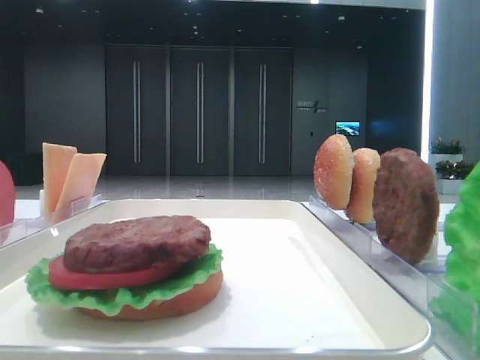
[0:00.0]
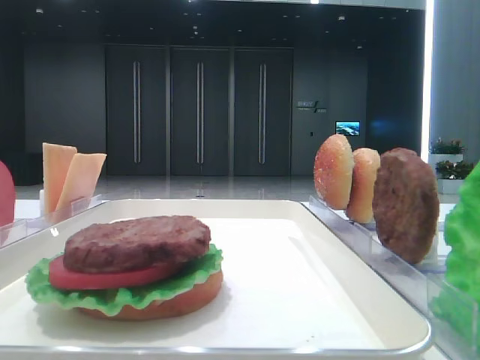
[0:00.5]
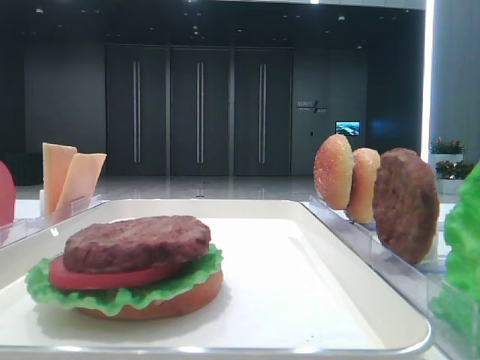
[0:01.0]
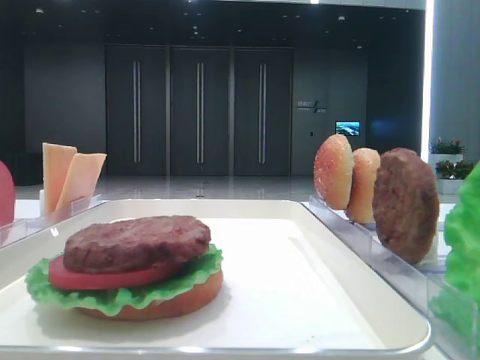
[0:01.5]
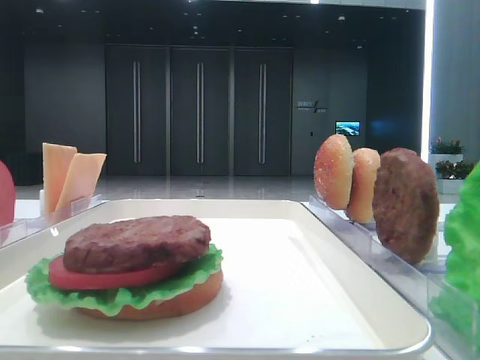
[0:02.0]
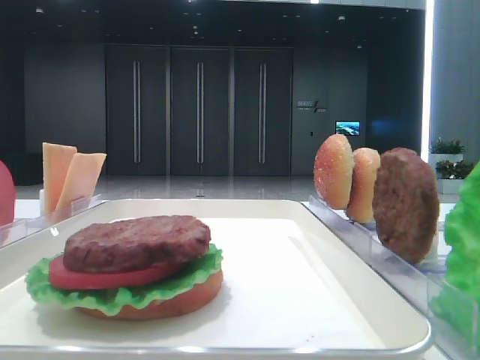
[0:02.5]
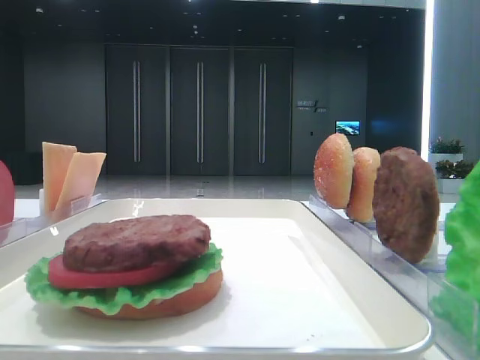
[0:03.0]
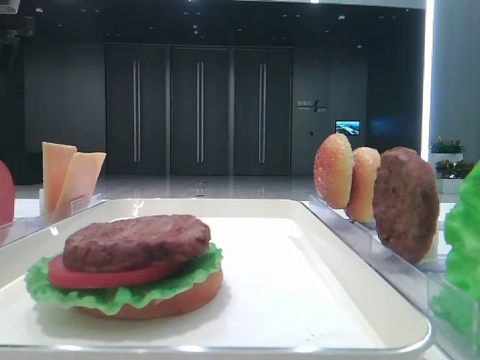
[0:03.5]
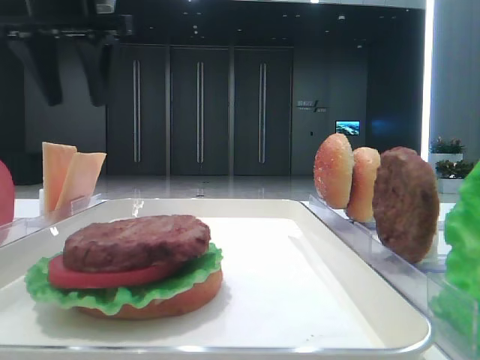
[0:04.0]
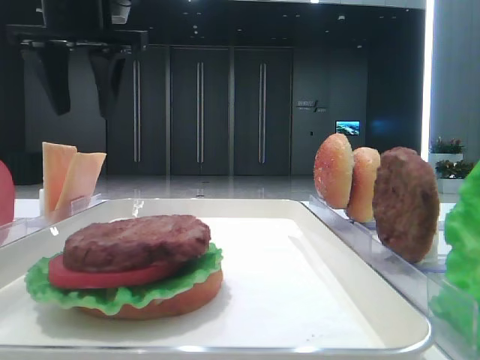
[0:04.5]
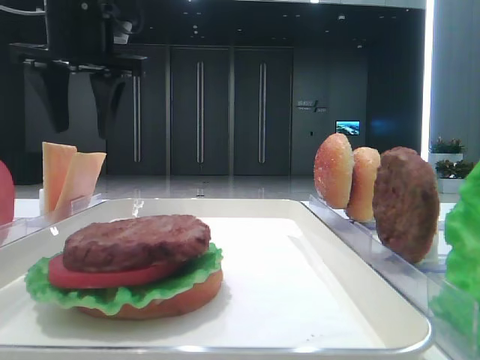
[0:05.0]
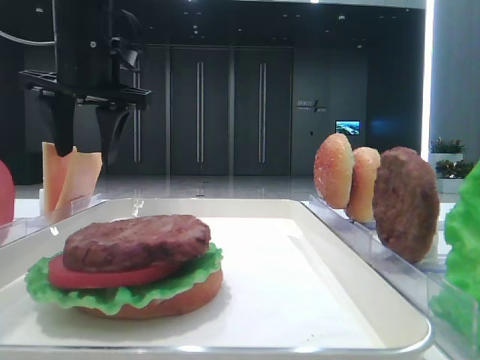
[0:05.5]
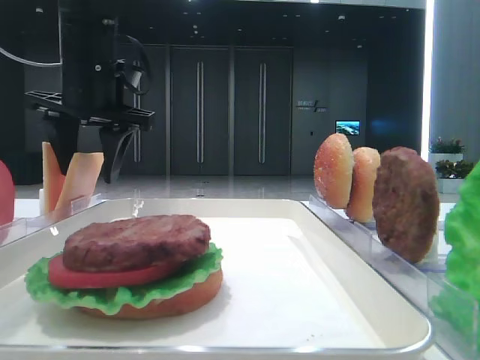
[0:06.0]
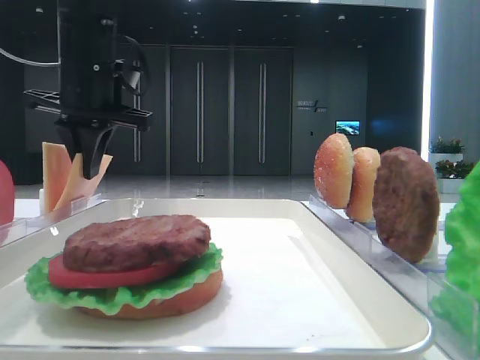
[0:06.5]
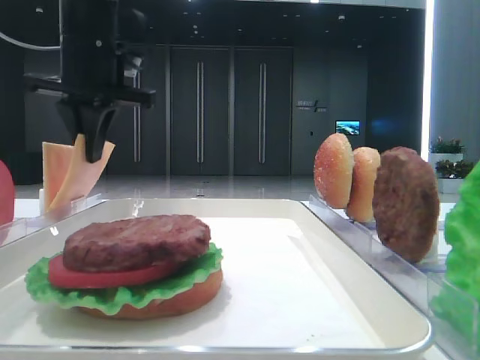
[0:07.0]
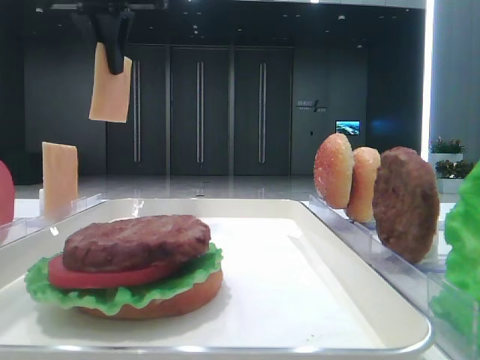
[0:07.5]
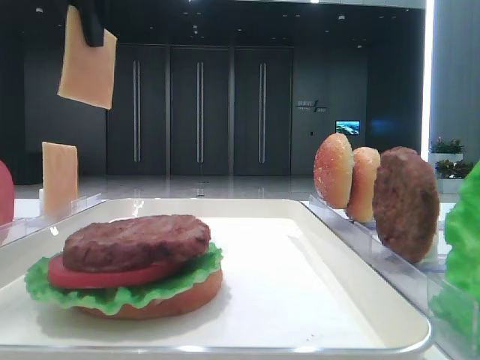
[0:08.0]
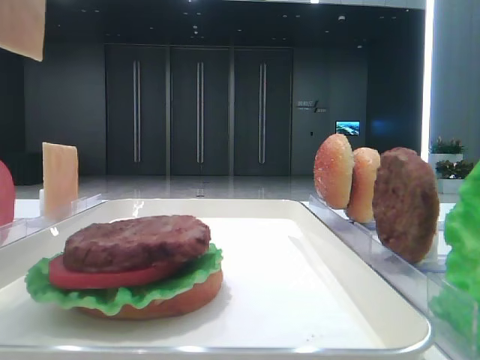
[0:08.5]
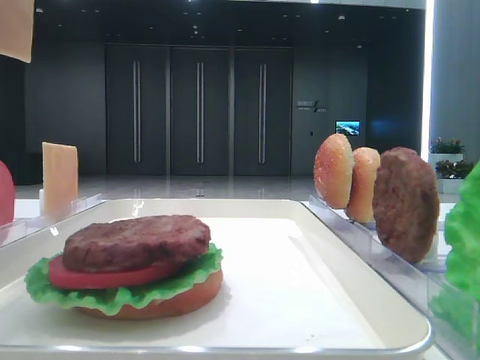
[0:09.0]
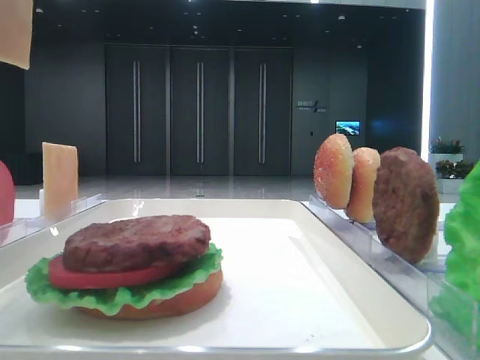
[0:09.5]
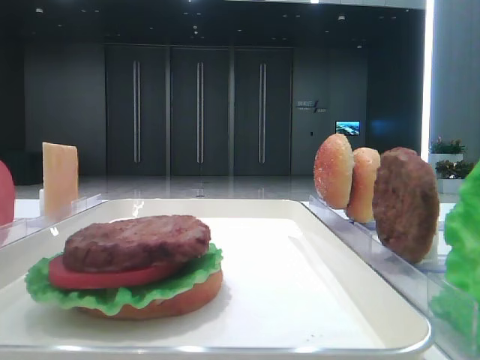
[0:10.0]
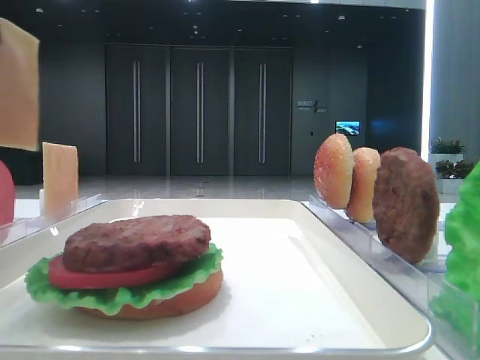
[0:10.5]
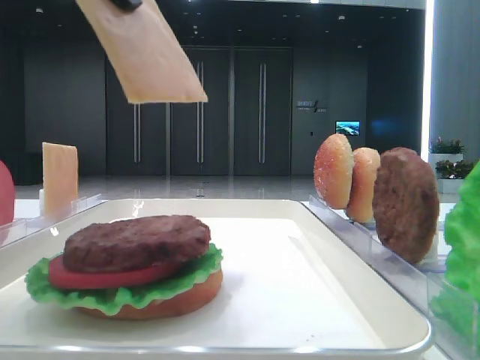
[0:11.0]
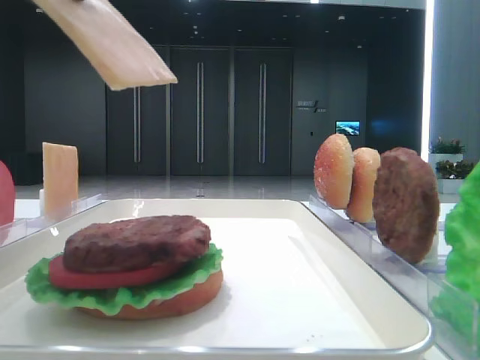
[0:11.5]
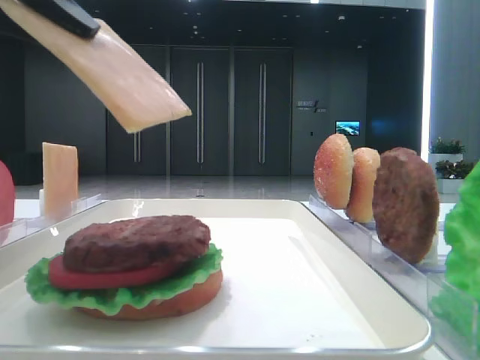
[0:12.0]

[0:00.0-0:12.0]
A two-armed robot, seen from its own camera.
Step, 0:00.0 to 0:06.0: Pick up the cheese slice with the left hand.
0:02.0 to 0:04.0: The left gripper goes about 40 cm forward.
0:04.0 to 0:06.0: The left gripper is displaced downward by approximately 10 cm.
0:06.0 to 0:08.0: The left gripper goes some 15 cm upward and backward, and closes up.
0:08.0 to 0:10.0: The left gripper heads backward, covering about 15 cm.
0:10.0 to 0:12.0: The left gripper shifts about 10 cm downward.

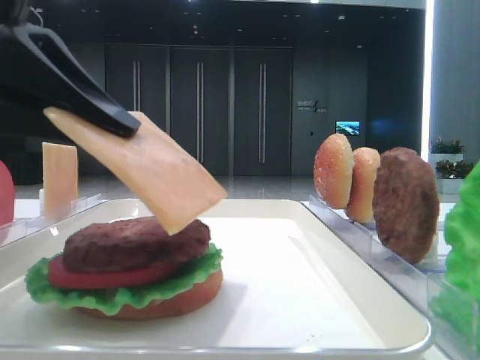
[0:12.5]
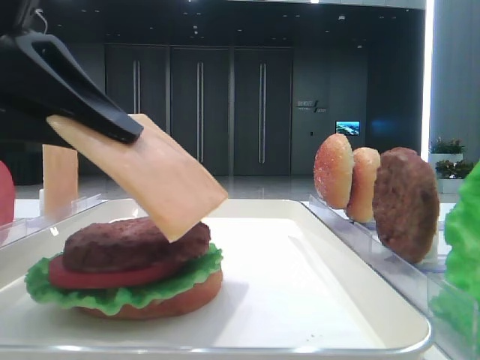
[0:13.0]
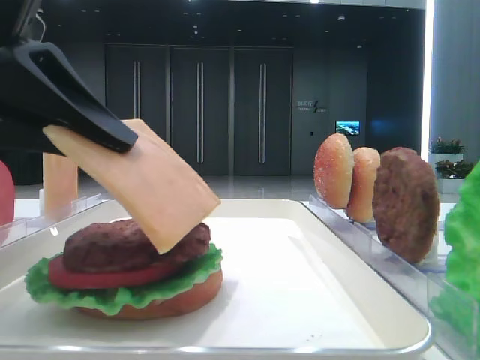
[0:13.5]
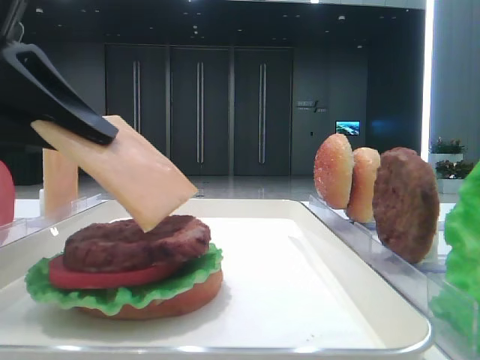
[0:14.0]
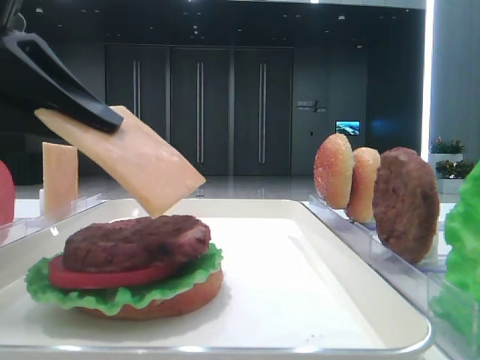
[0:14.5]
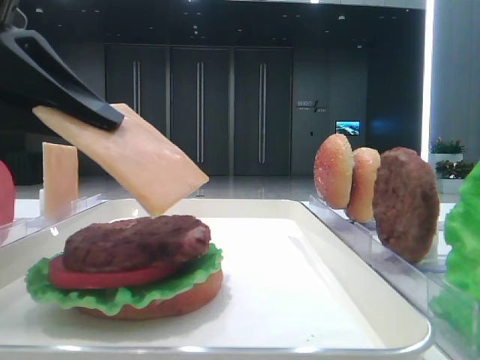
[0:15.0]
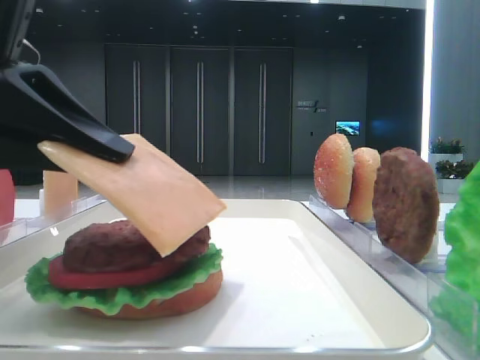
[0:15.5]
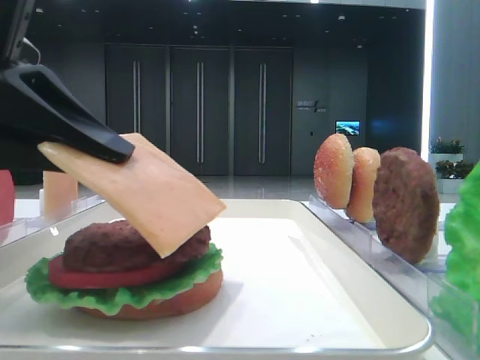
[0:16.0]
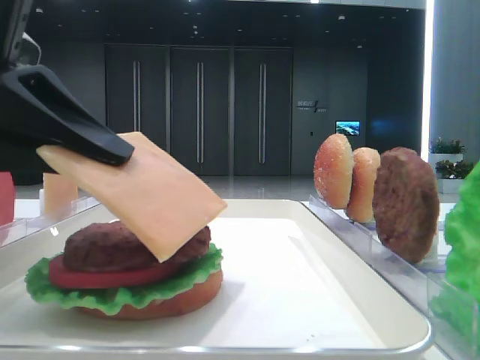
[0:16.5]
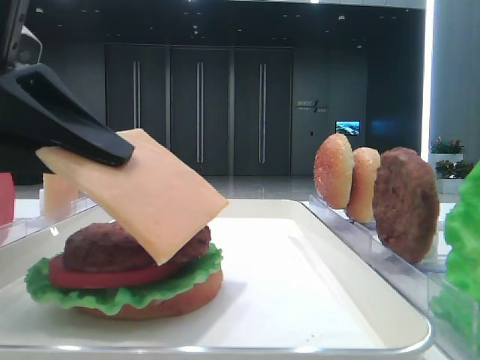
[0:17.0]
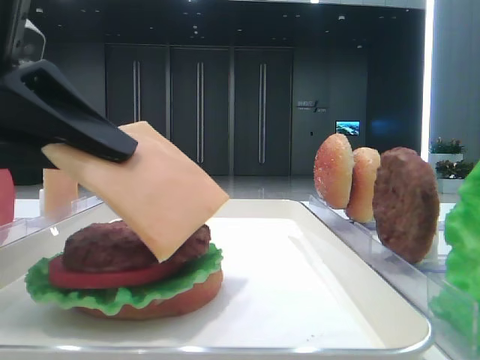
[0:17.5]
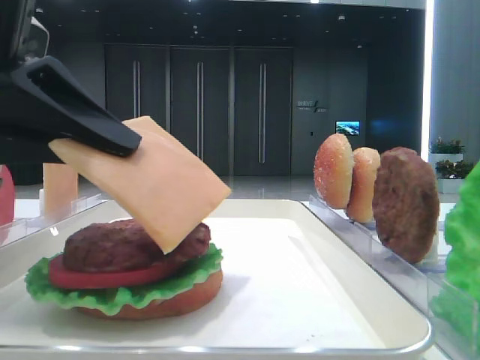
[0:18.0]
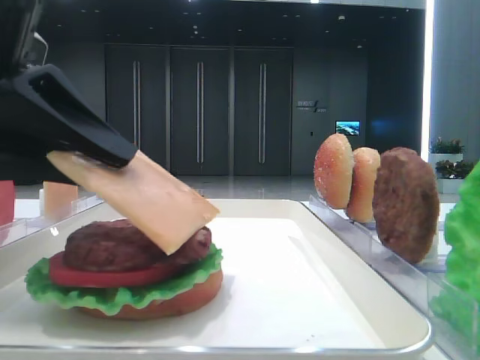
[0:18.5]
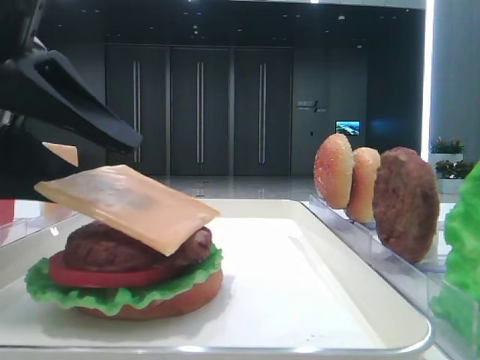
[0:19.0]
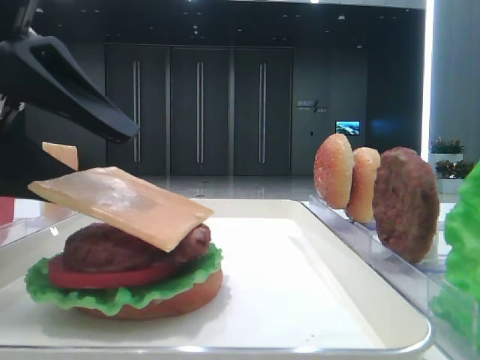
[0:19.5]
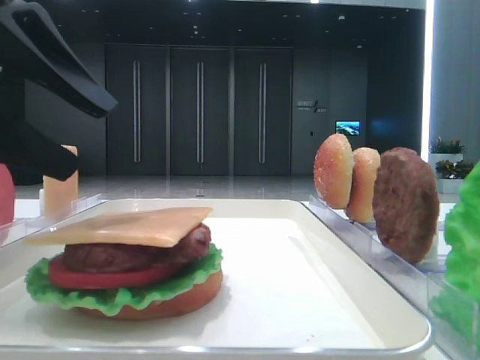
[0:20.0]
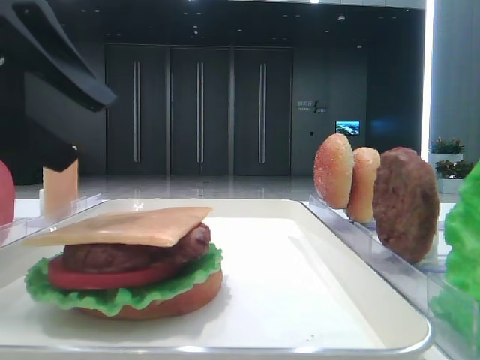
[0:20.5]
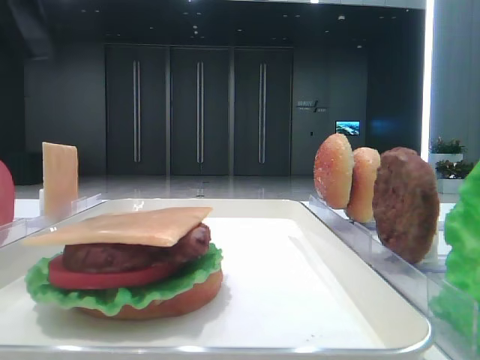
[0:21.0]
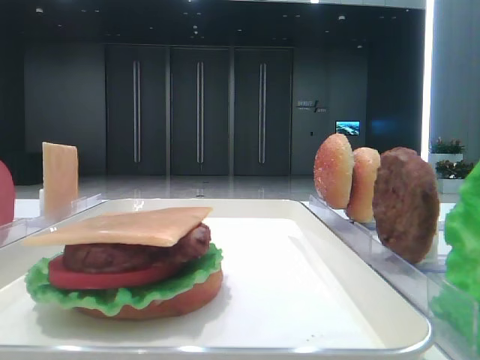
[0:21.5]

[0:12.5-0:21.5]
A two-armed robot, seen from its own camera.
Step, 0:12.5 to 0:19.5: Place the cheese slice on the patty with the left hand.
0:12.5 to 0:17.0: There are only small adjustments of the grippers.
0:17.0 to 0:19.5: The left gripper opens its fingers.
0:19.5 to 0:21.5: The left gripper goes some 20 cm upward and to the left.

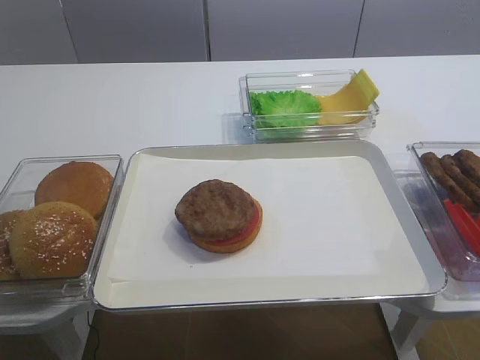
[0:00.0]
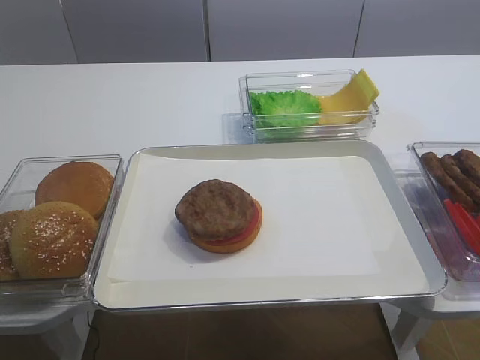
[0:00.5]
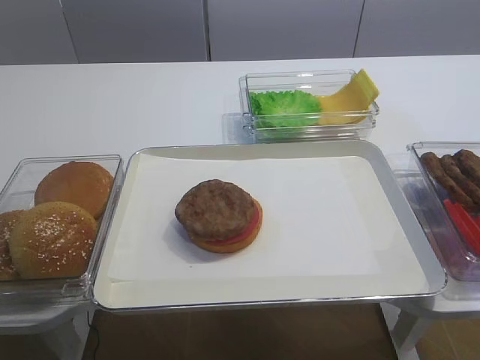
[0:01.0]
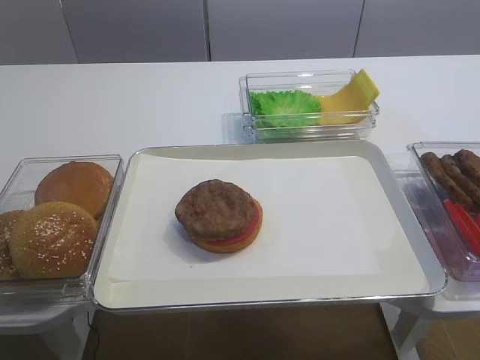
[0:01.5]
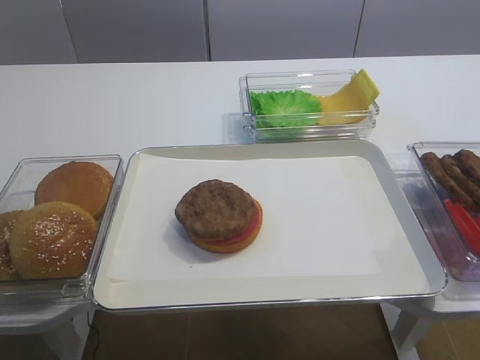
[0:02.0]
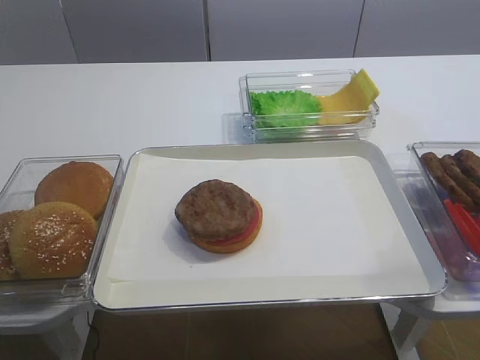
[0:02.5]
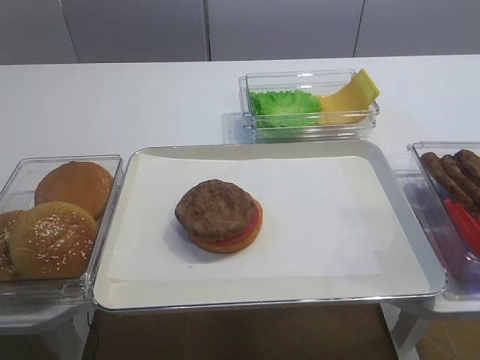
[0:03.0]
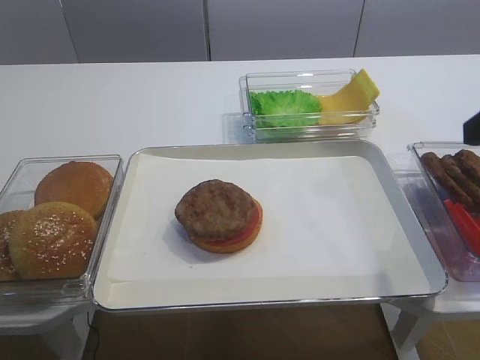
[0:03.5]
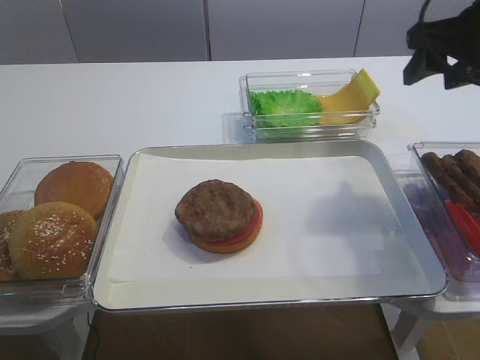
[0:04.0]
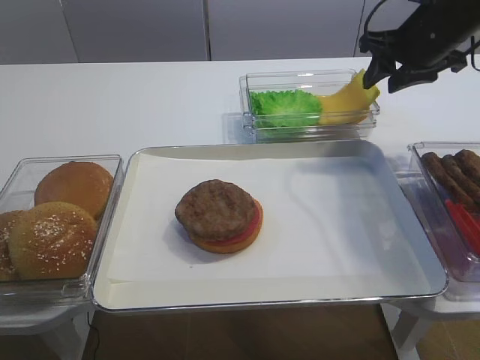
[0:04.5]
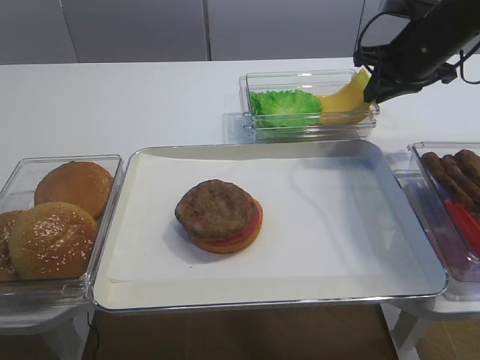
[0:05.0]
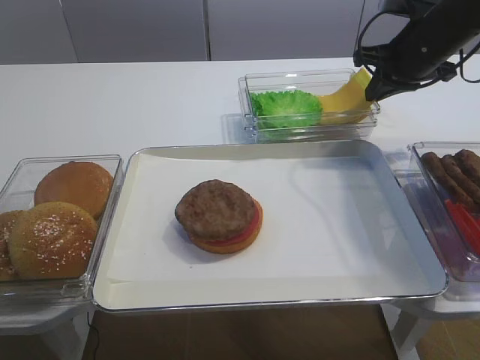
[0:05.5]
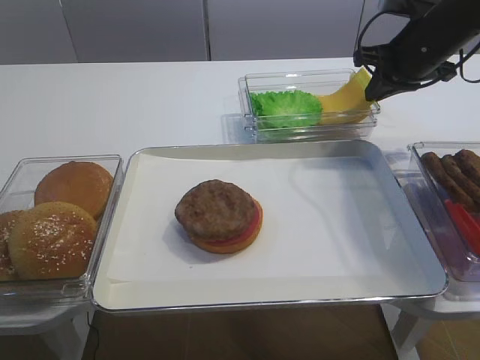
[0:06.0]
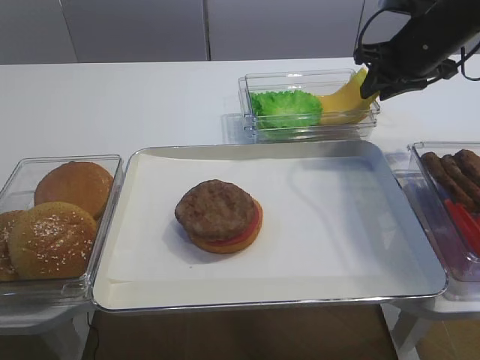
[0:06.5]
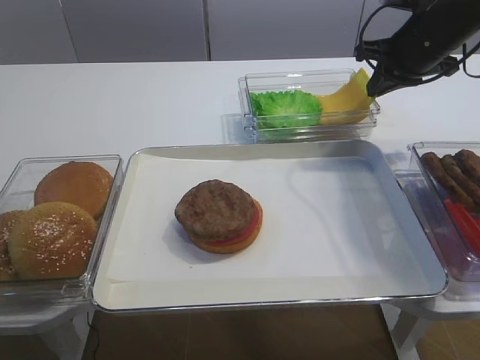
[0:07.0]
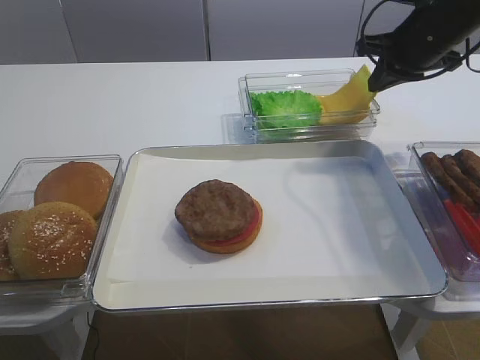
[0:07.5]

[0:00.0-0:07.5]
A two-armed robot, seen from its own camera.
0:02.0 to 0:04.0: The right gripper goes approximately 35 cm forward.
0:04.0 to 0:05.5: The right gripper is displaced forward and downward by about 10 cm, and closes.
0:05.5 to 0:07.5: The right gripper opens, then closes again.
